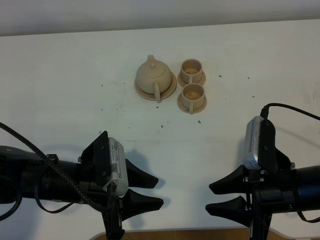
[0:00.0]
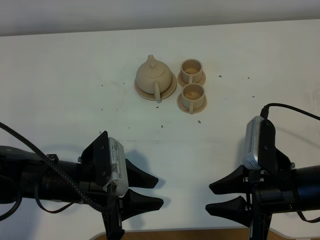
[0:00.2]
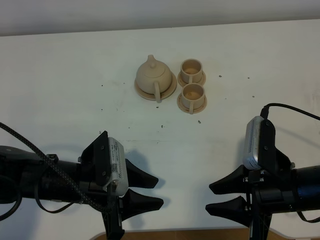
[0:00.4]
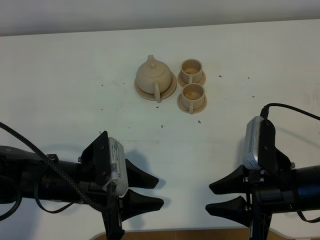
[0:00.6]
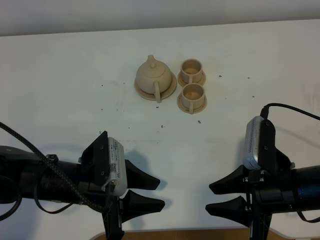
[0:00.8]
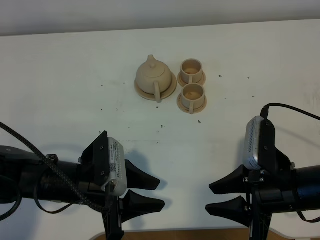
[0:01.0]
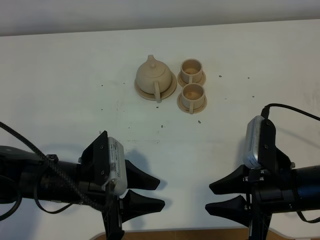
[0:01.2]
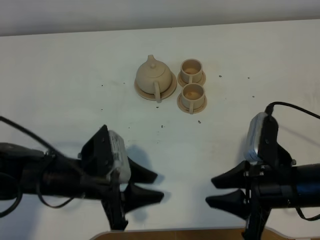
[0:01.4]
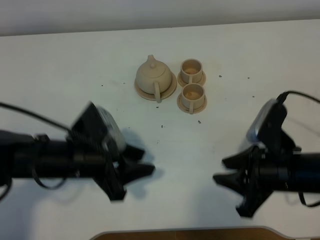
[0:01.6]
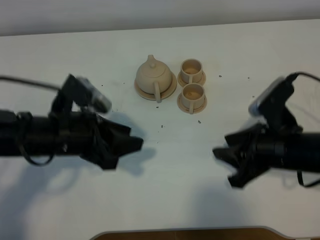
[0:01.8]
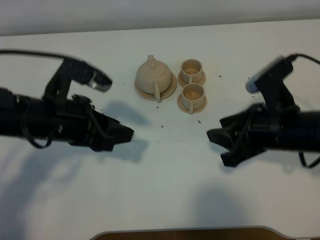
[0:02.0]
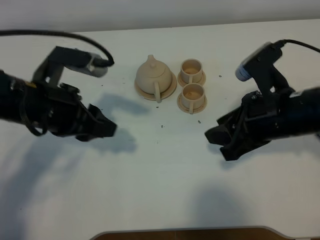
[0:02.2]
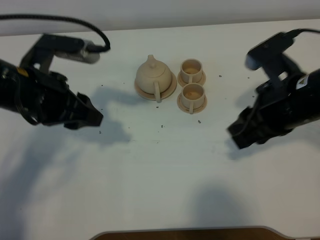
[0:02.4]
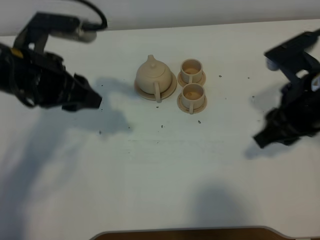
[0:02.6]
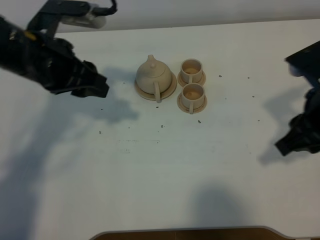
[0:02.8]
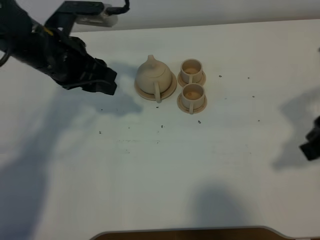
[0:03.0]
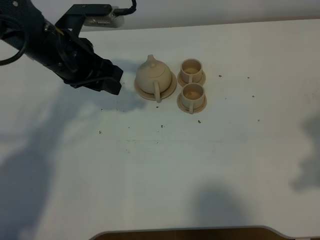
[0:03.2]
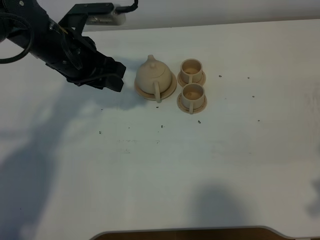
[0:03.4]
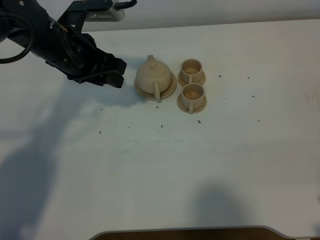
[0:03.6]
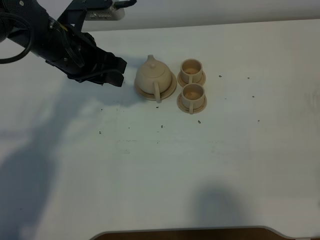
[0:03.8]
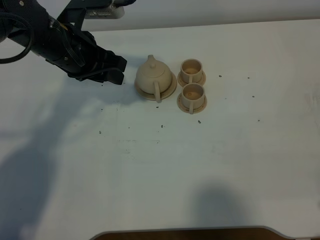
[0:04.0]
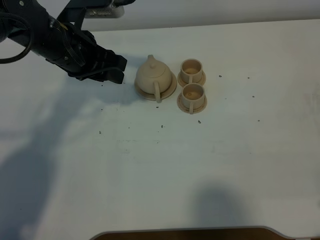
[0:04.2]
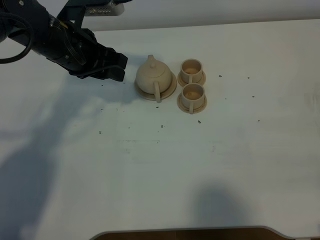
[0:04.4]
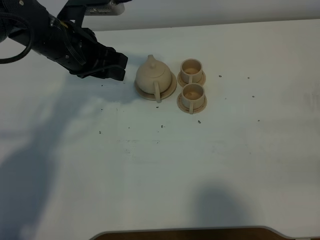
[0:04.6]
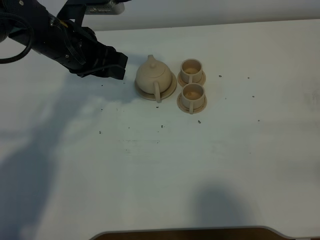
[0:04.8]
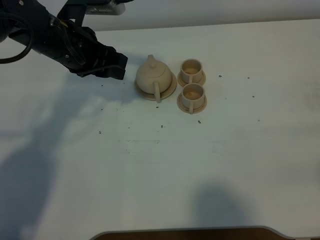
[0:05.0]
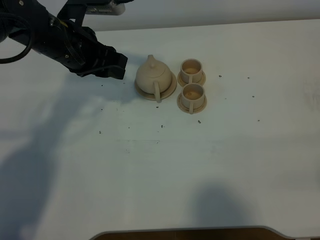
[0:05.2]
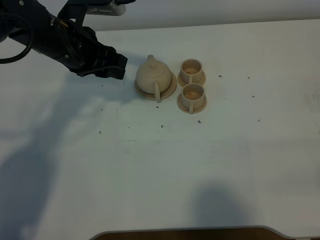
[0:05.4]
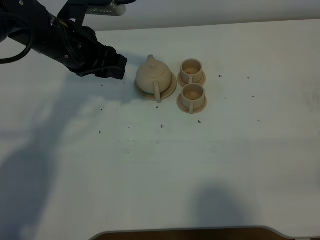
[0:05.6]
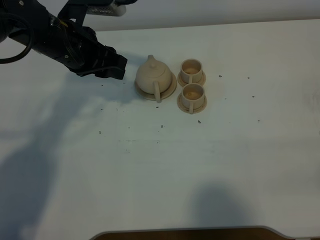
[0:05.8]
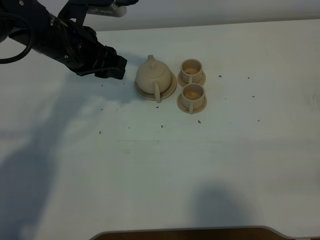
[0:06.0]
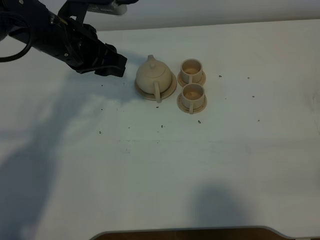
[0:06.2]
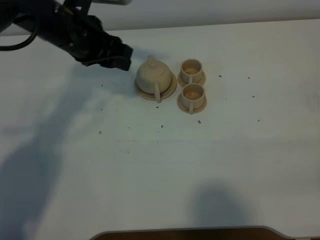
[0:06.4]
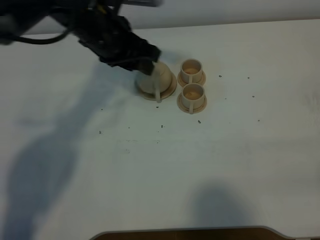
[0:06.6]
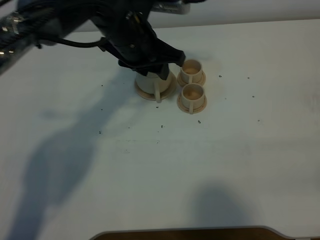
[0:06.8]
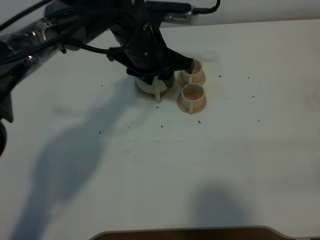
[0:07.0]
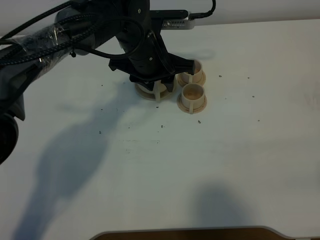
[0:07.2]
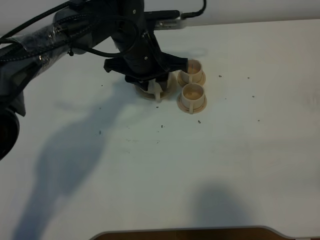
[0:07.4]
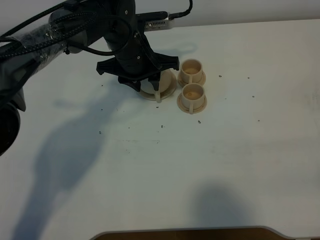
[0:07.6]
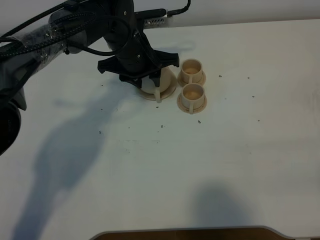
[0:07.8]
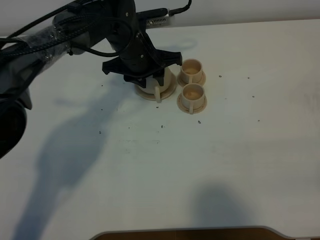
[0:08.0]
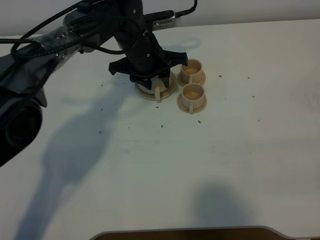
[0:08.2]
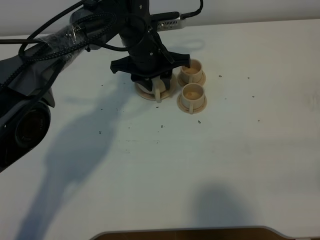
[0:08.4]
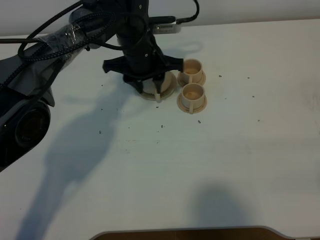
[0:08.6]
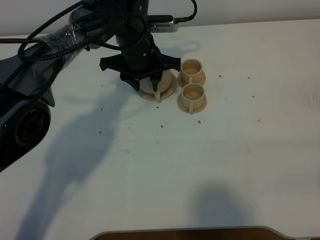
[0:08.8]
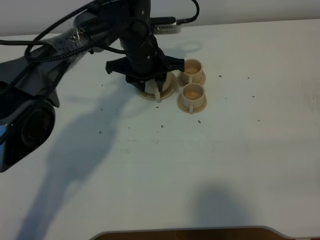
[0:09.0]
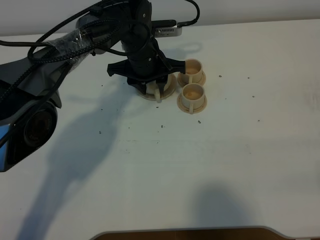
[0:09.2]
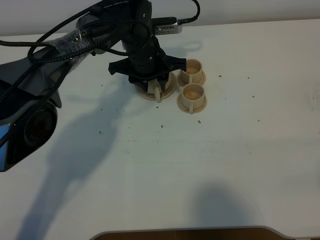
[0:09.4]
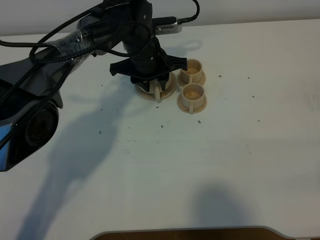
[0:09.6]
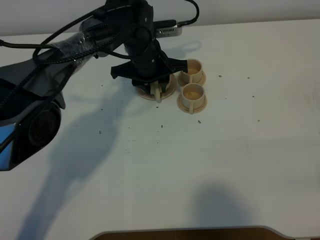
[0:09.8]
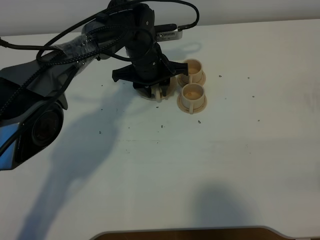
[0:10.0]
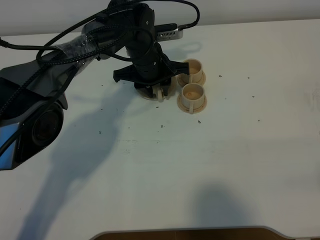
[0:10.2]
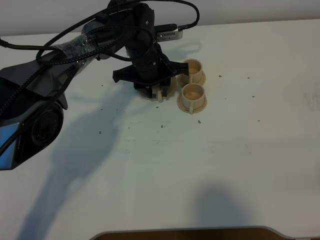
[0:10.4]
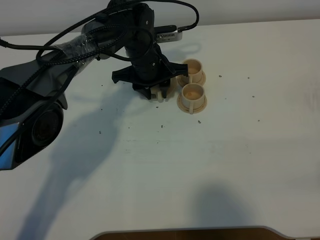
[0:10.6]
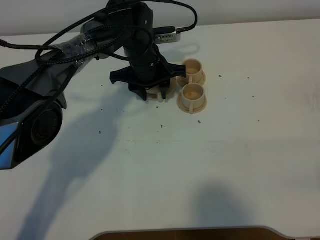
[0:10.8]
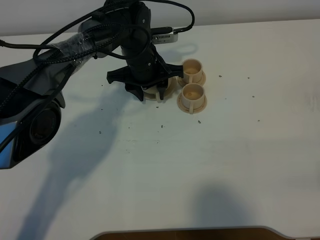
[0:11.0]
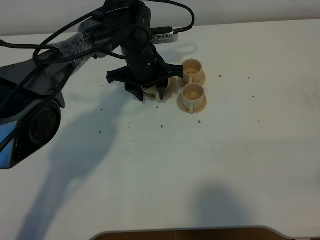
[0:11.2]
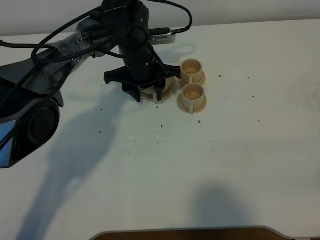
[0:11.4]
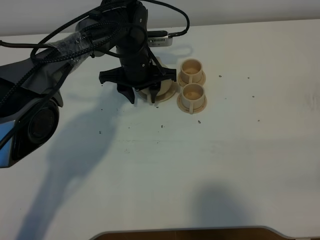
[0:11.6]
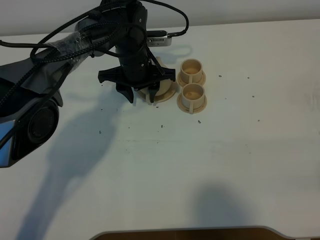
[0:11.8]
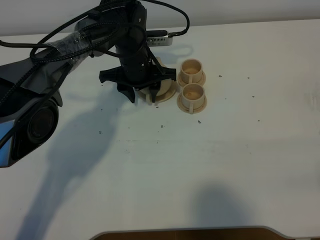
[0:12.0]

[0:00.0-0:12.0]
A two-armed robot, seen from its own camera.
Task of the whole recording: grasp the brown teapot and pour the tea into the two brown teacups one by one, put the brown teapot back in its original place.
0:01.6 to 0:03.0: The right gripper is displaced upward by some 15 cm. Meanwhile the left gripper is displaced forward and upward by approximately 15 cm.
0:03.0 to 0:04.4: The right gripper is displaced backward, to the right and downward by some 15 cm.
0:06.0 to 0:07.6: The left gripper moves to the right and downward, roughly 10 cm.
0:07.6 to 0:12.0: There are only small adjustments of the grippers.

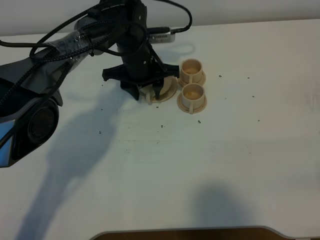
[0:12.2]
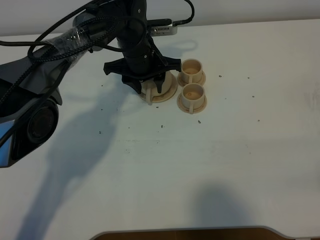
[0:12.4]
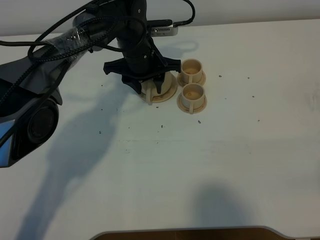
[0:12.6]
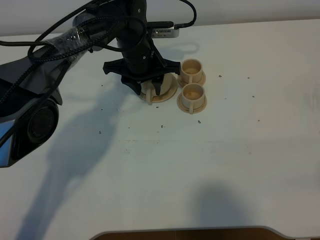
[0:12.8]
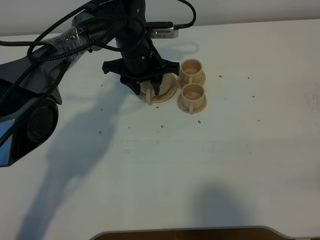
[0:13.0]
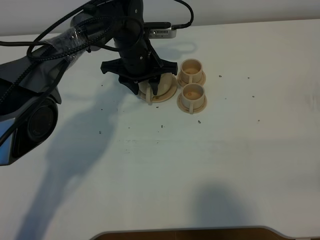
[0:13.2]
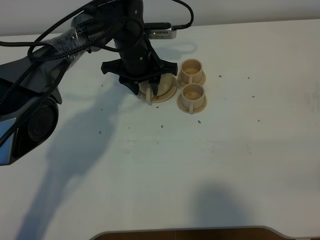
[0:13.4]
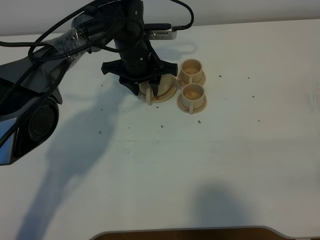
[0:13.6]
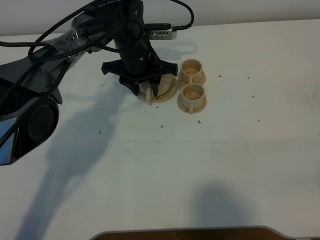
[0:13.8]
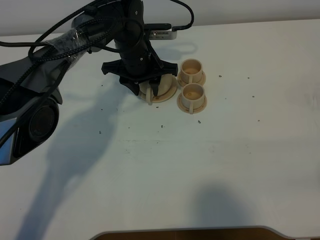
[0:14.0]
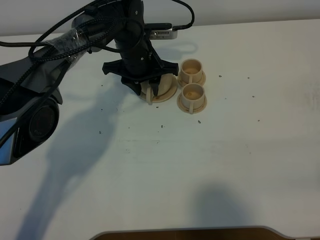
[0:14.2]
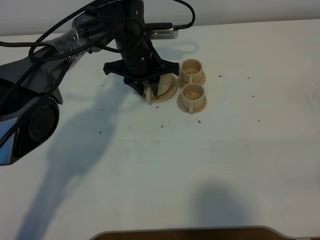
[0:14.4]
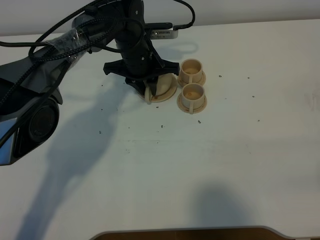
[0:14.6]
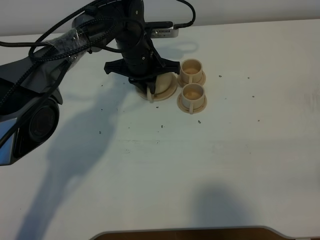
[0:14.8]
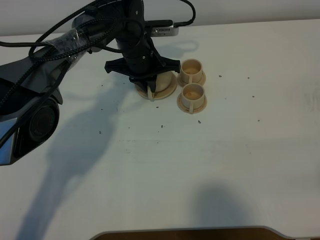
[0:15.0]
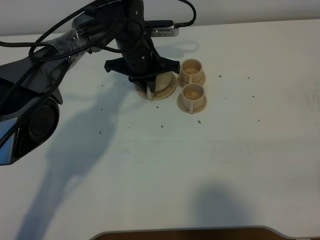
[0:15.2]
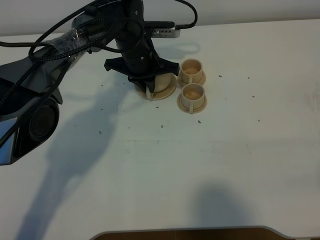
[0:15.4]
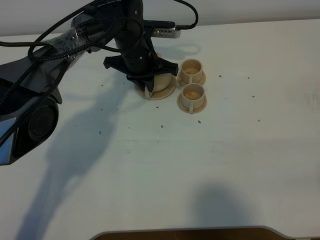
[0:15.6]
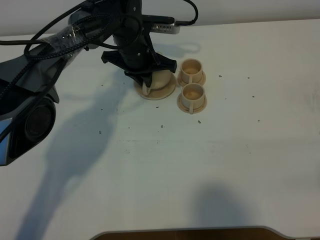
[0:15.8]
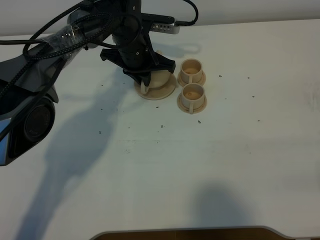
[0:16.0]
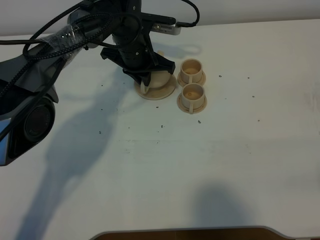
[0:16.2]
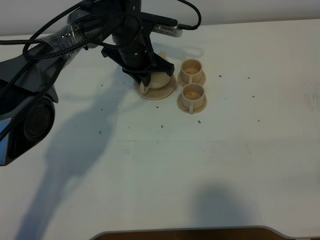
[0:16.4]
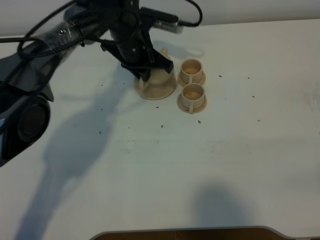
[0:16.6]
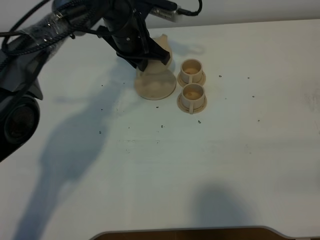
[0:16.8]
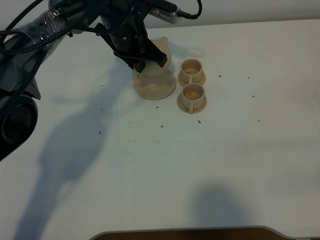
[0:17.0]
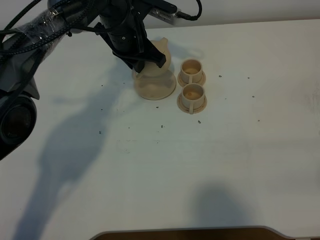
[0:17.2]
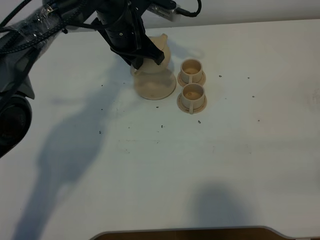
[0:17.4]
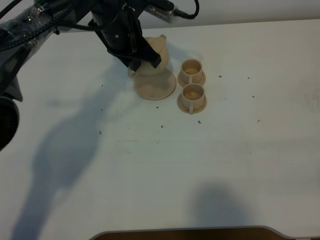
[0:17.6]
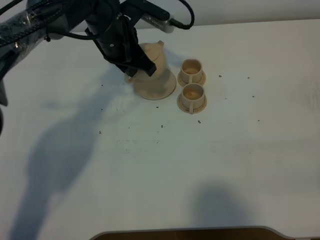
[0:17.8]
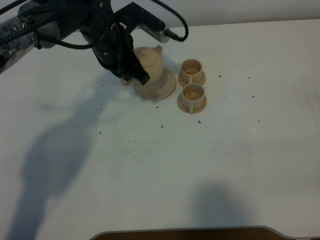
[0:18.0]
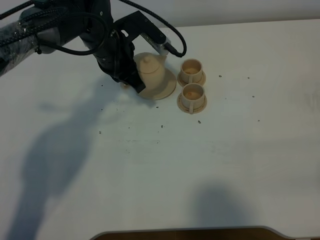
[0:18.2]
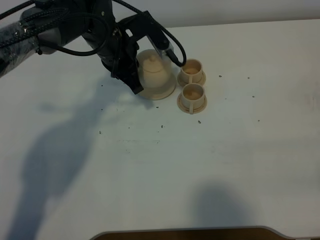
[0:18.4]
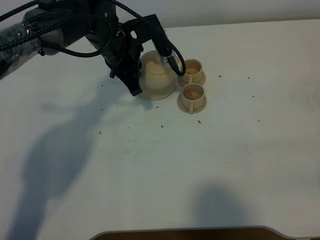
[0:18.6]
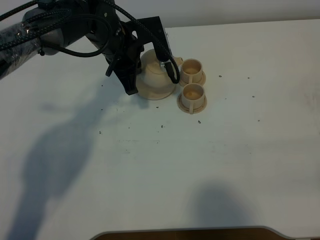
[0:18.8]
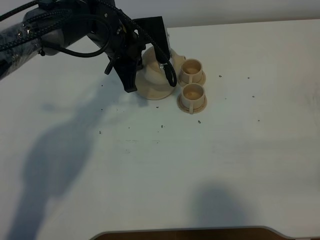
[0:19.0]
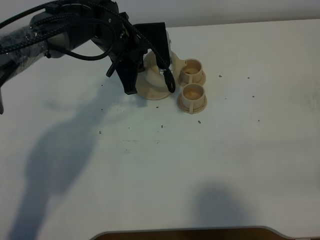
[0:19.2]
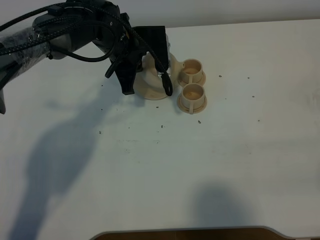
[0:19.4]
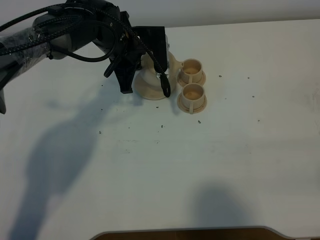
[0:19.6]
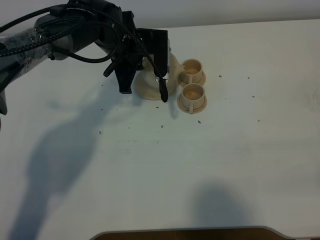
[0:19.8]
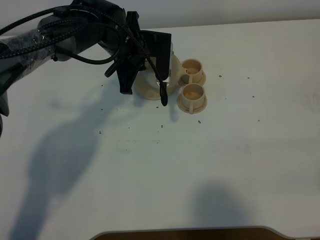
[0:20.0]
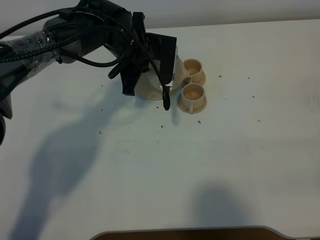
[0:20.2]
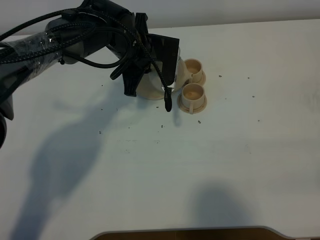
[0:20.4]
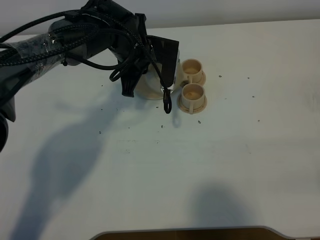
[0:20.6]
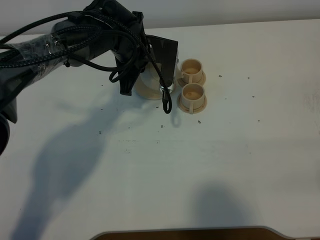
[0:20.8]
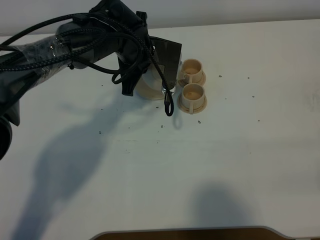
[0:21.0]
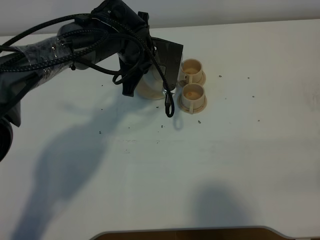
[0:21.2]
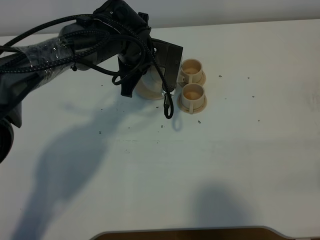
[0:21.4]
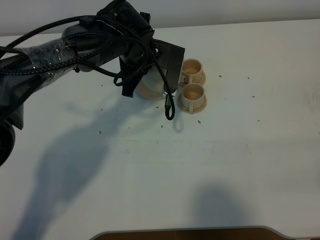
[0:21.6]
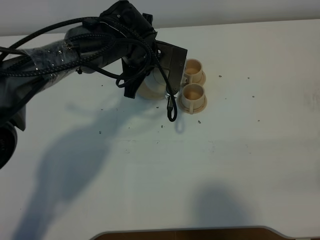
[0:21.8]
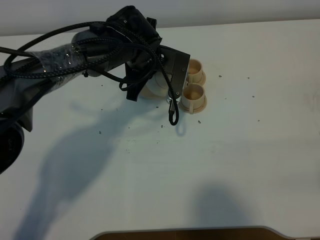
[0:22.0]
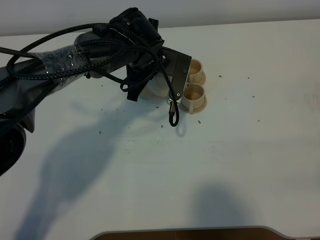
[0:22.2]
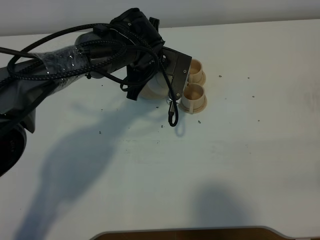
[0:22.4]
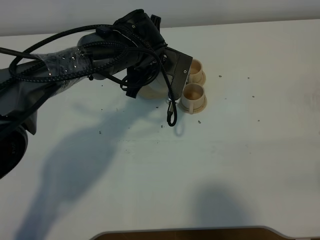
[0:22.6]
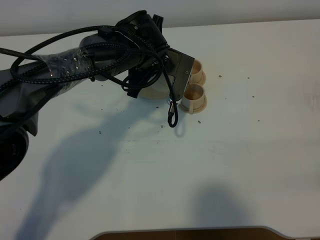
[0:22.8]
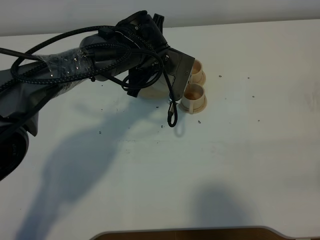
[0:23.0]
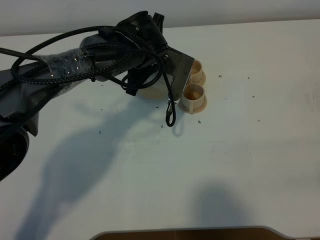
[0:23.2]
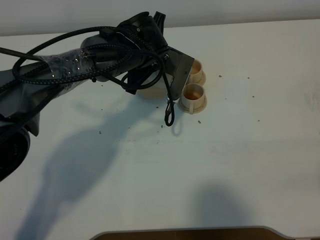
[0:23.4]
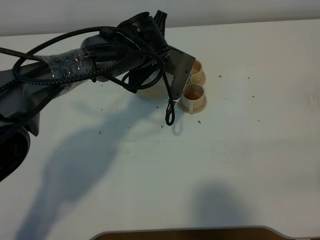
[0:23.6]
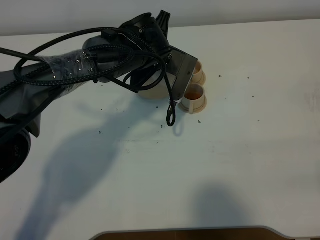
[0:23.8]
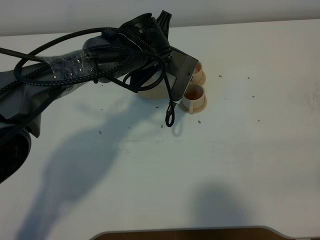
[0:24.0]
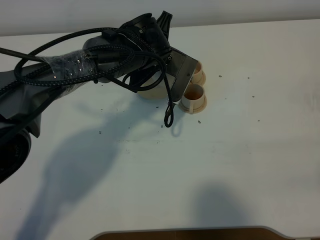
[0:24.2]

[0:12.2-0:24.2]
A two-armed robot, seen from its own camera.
Task of the whole recording: grasp the brown teapot and pour the tea into the two brown teacups one by one, put the brown teapot back in its original place.
Step, 0:12.2 to 0:16.0: Pick up the teapot with the left gripper.
0:12.2 to 0:13.8: The grippers stay close to where they were, moving slightly.
0:13.8 to 0:15.2: The left gripper closes up.
0:15.2 to 0:16.6: The grippers stay close to where they were, moving slightly.
0:16.6 to 0:18.2: The left gripper ends up some 5 cm from where it was.
0:19.8 to 0:21.2: There are only small adjustments of the grippers.
0:21.2 to 0:24.2: The grippers move only a little.
